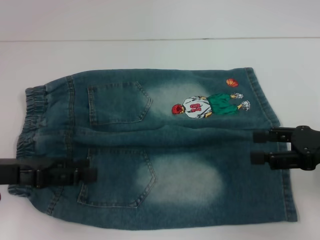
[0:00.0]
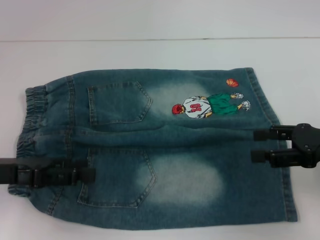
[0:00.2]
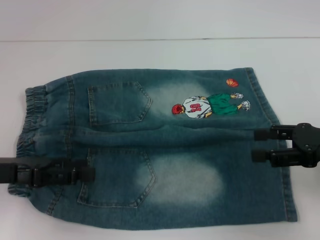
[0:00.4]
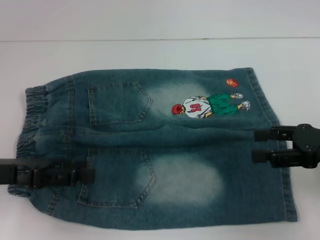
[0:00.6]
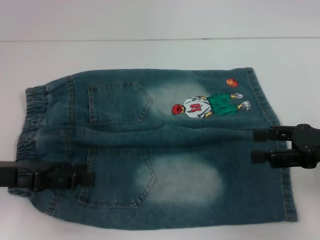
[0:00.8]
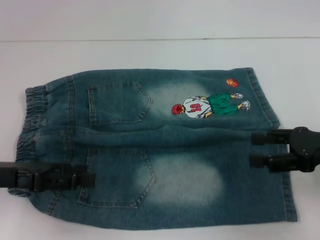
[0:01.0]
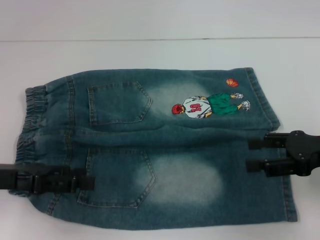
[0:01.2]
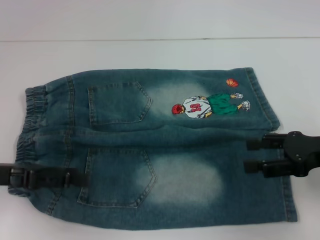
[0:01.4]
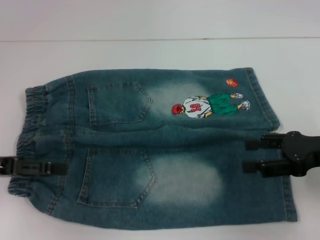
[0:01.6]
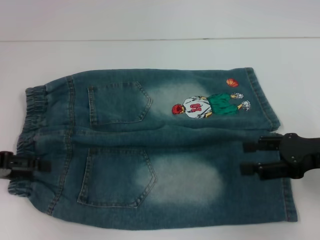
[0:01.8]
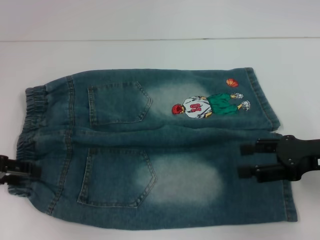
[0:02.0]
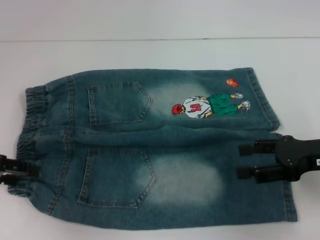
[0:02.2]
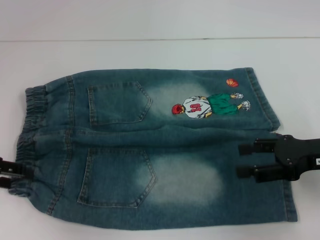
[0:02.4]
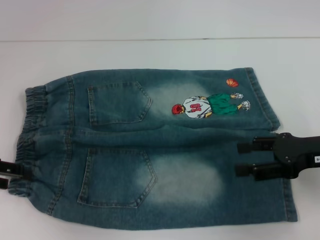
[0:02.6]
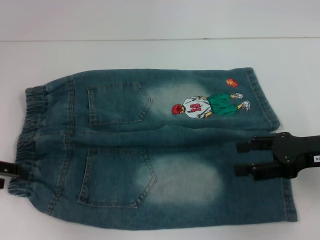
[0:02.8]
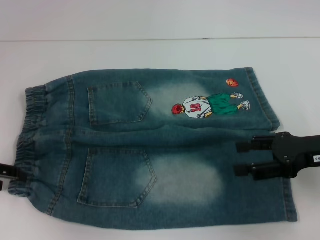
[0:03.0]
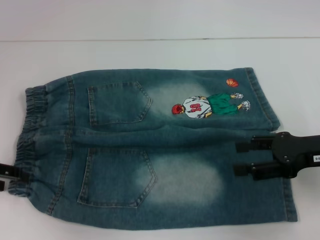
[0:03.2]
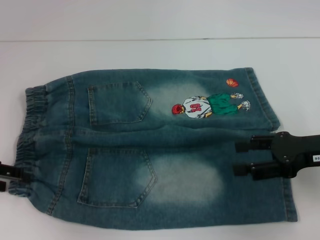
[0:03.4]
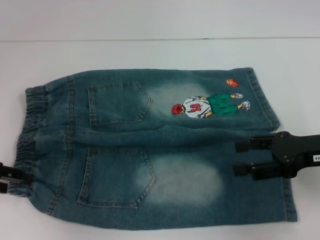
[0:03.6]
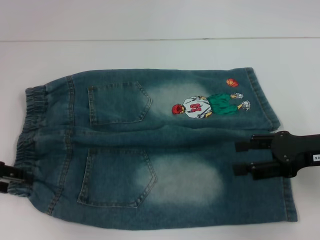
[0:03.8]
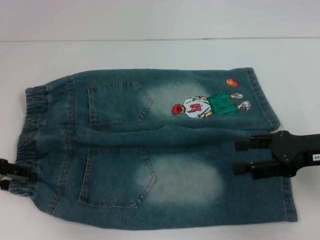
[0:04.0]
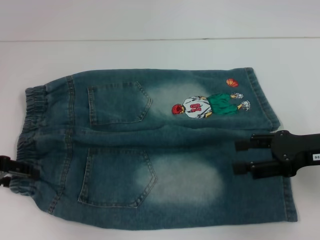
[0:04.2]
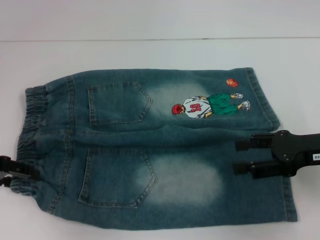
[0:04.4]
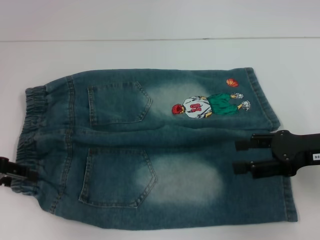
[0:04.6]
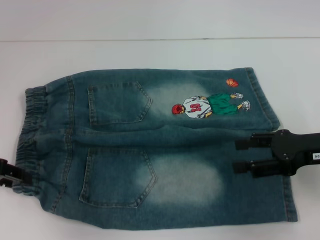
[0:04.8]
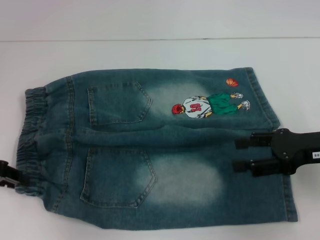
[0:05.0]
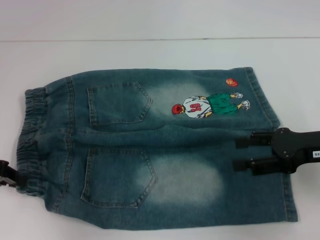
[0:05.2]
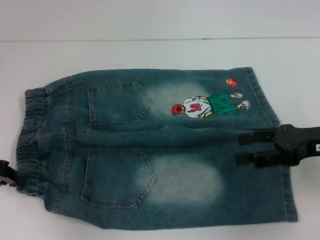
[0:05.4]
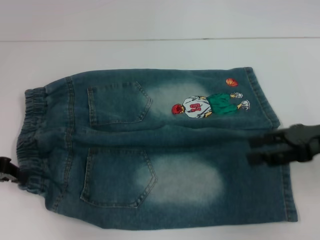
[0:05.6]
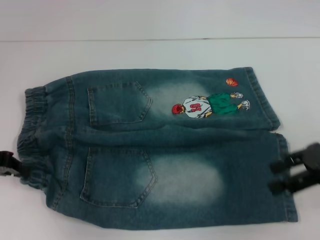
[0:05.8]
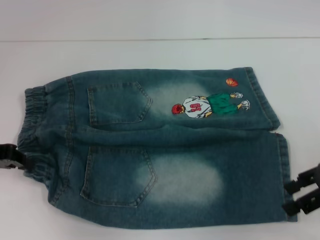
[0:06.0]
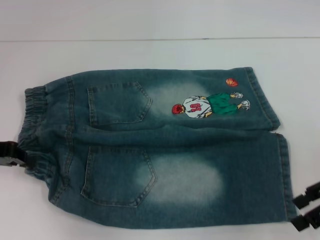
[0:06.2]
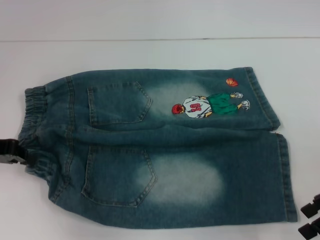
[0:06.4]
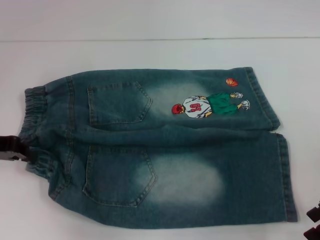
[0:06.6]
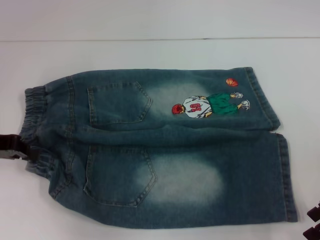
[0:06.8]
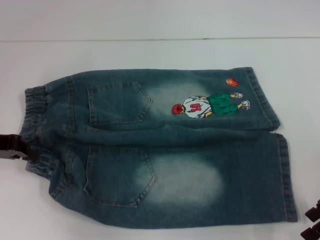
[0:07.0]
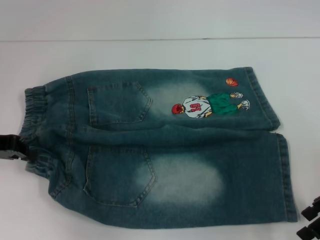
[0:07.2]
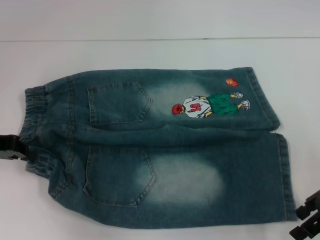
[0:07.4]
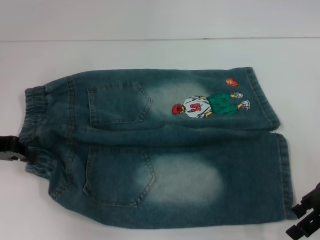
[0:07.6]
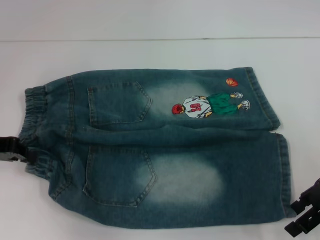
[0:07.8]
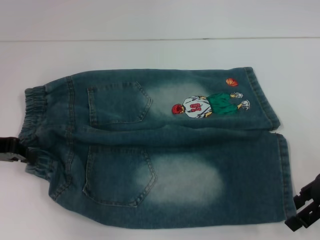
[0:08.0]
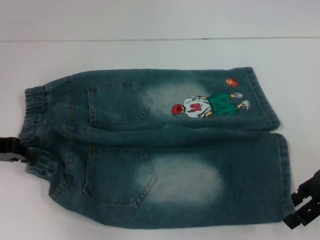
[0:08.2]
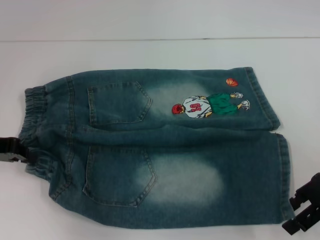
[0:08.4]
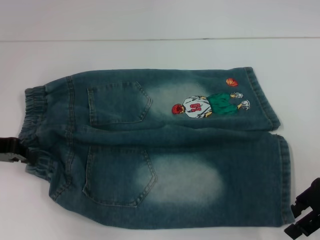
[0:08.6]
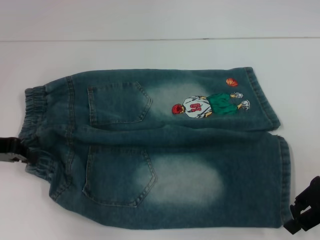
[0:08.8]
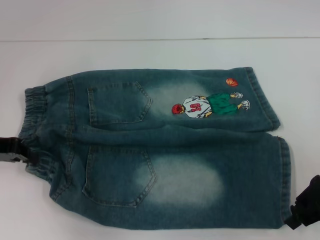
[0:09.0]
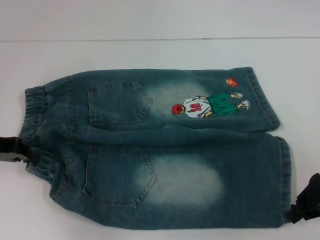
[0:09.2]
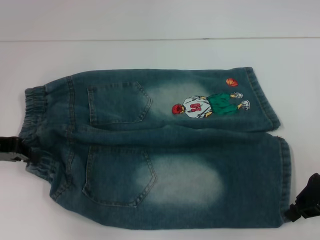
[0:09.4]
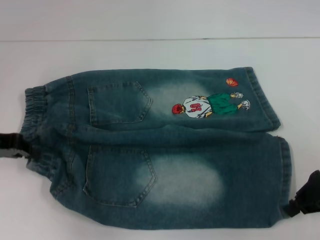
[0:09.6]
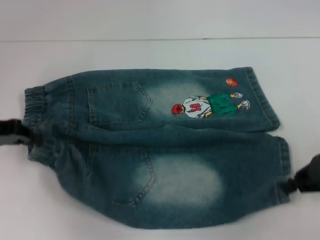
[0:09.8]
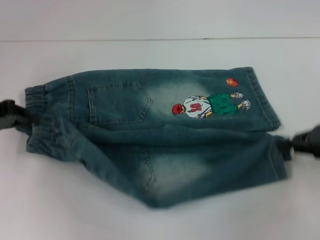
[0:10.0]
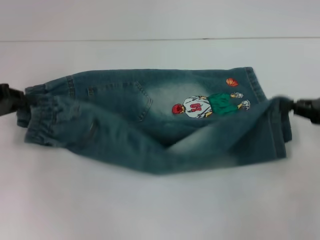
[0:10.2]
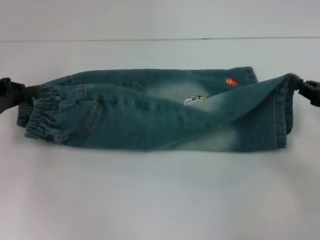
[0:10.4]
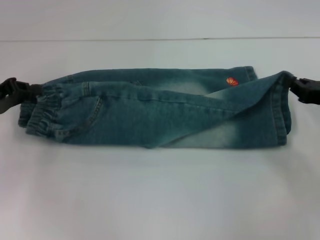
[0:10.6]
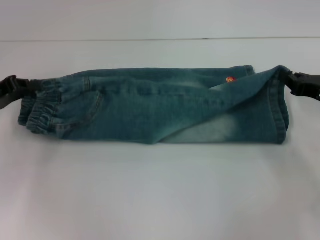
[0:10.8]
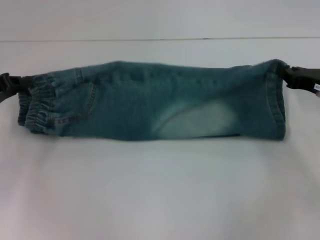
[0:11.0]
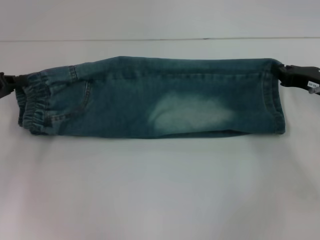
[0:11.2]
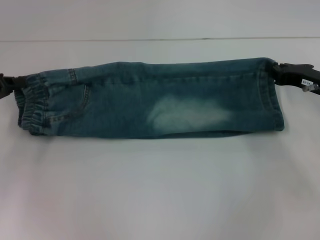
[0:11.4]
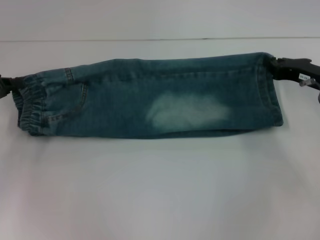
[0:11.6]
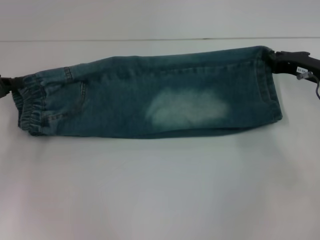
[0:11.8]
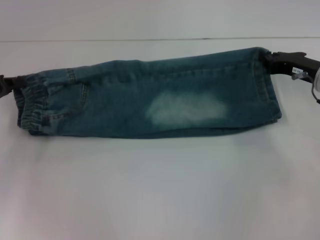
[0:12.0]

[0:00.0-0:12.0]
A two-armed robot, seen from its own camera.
Step, 0:00.0 to 0:05.4: Hold the lower left waistband with your left hand.
Step, 0:05.6 to 0:09.2: Grab the lower right pant leg with your right hand.
0:03.0 to 0:04.4: There are only small adjustments of the grippers.
0:04.4 to 0:06.0: The left gripper closes.
0:06.0 to 0:09.0: There are only small adjustments of the grippers.
0:09.0 to 0:10.4: The right gripper moves to the right, roughly 5 cm, and closes up.
0:10.4 to 0:12.0: The right gripper shifts some 10 cm forward and to the left.

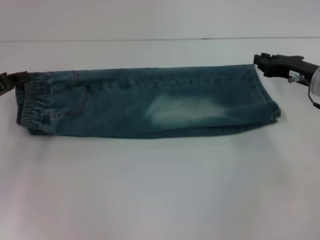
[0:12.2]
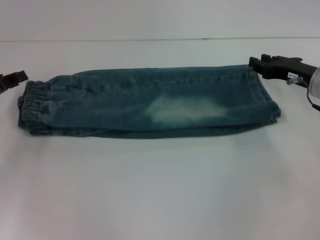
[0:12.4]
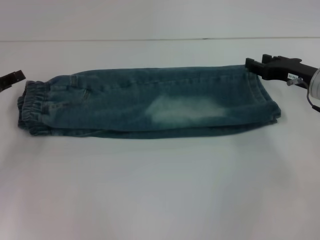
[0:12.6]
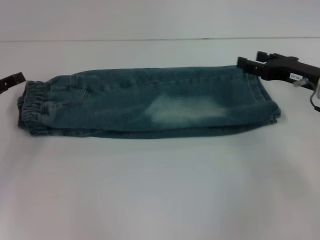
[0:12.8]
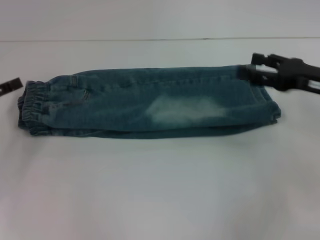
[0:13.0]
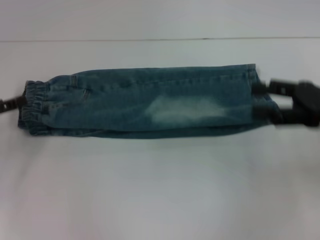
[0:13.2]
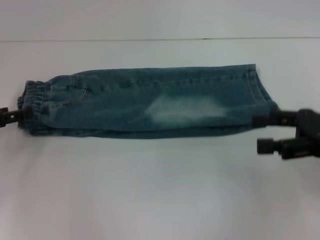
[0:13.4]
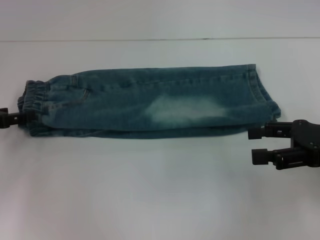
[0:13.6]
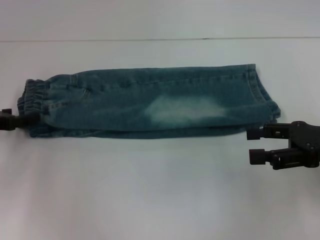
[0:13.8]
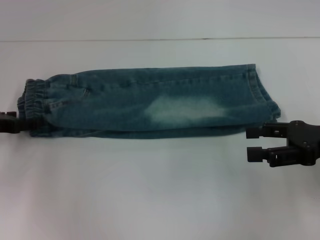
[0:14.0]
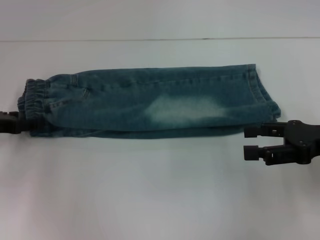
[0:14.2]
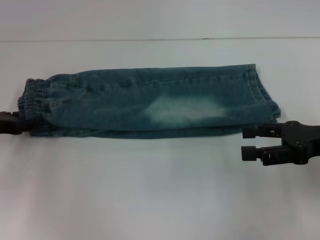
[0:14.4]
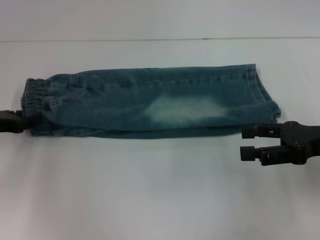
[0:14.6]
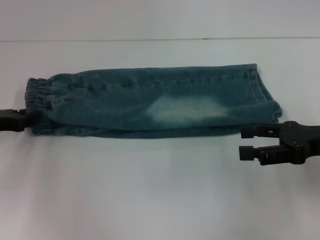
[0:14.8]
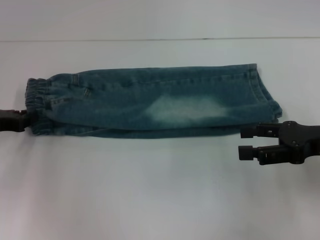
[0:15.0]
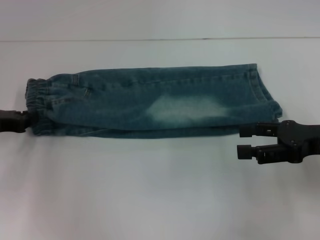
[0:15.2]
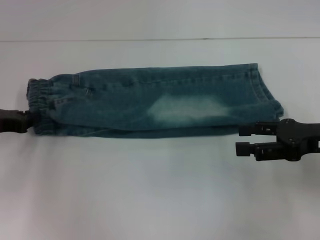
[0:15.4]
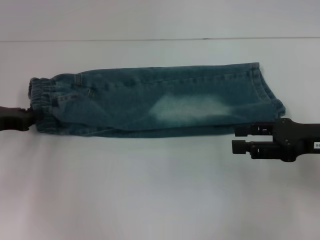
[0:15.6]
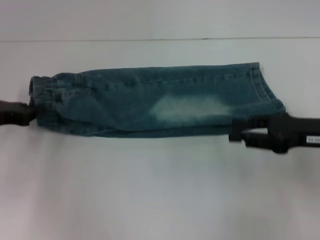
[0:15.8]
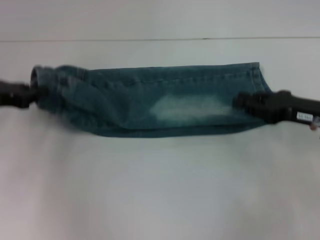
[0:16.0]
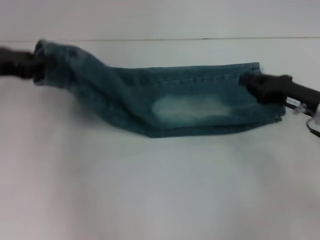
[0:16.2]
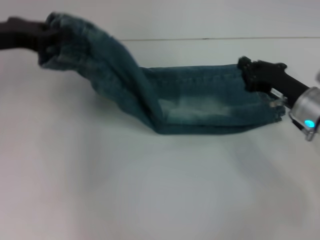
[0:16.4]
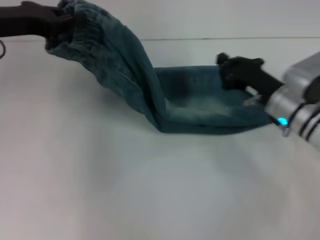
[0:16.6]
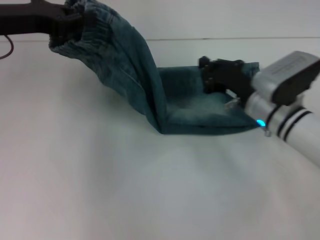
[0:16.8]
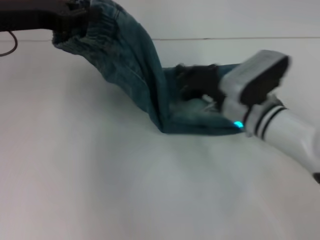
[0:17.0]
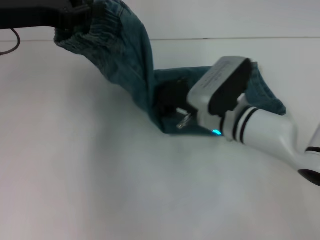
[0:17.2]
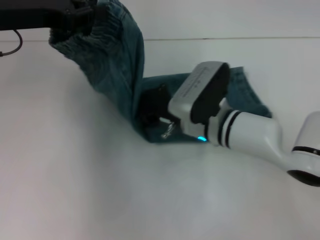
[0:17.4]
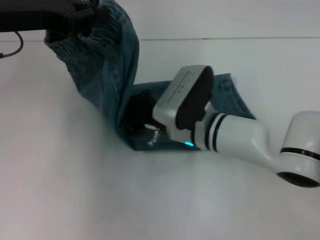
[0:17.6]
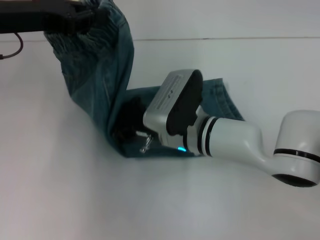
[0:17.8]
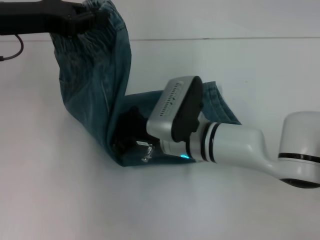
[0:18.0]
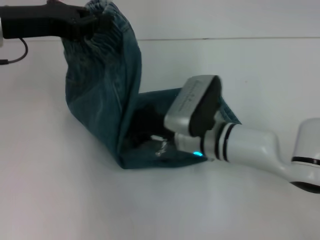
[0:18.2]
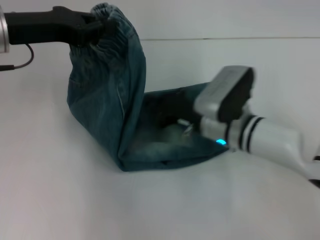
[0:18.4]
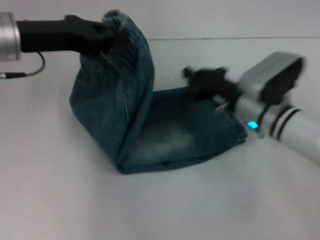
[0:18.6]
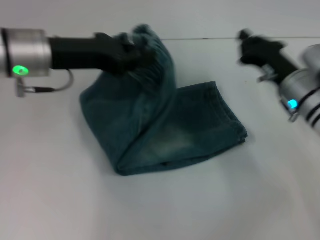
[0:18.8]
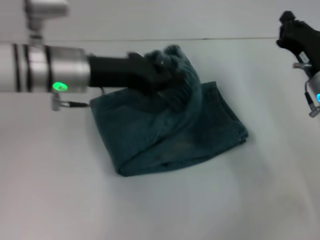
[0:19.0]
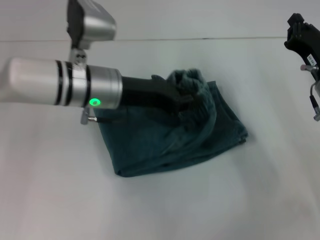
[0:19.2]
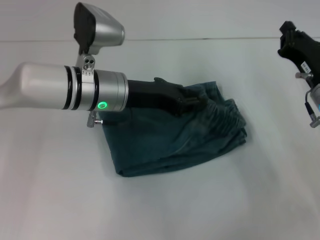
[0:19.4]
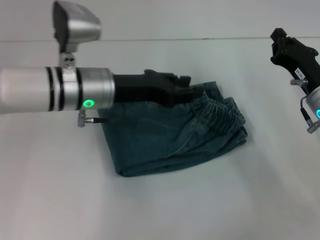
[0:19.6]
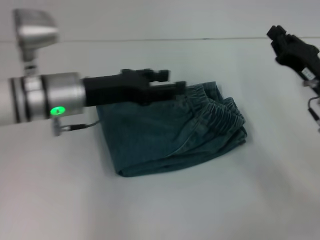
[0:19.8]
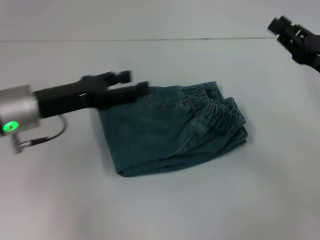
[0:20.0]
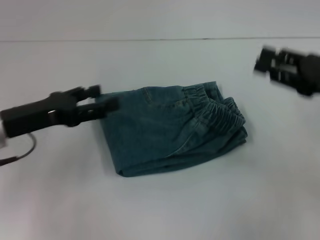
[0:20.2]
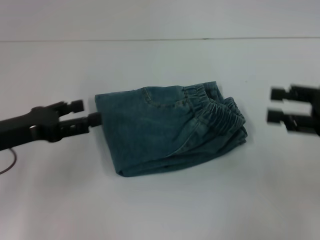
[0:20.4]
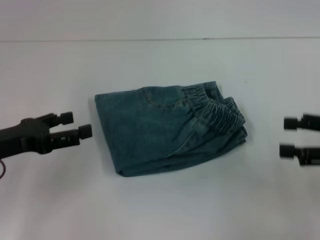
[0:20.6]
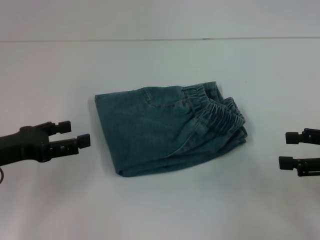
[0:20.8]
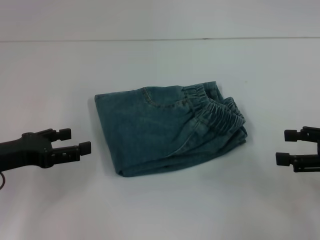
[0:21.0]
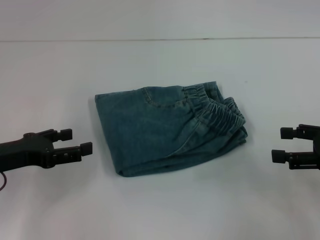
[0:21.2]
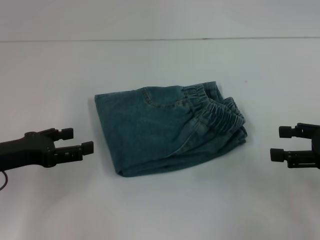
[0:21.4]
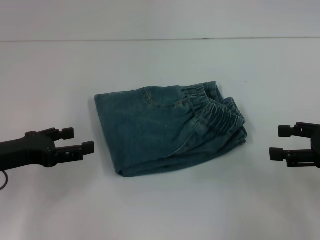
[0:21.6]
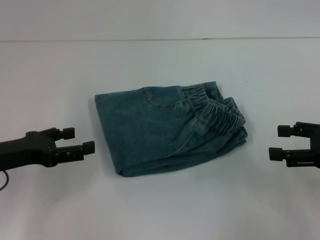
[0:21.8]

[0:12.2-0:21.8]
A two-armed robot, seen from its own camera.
Step, 0:12.8 to 0:15.0: Hold the waistband with your left hand.
Step, 0:15.2 to 0:18.2: Press the middle of the pants with your right hand.
Step, 0:18.4 to 0:19.6: Fold to the right with your left hand.
0:12.2 to 0:13.8: The right gripper heads backward, covering some 10 cm, and opens; the left gripper opens up.
0:13.8 to 0:15.4: The left gripper closes.
0:15.4 to 0:17.0: The right gripper is displaced to the left, forward and downward by approximately 20 cm, and closes its fingers; the left gripper heads upward and to the right, covering some 15 cm.
0:17.0 to 0:18.6: The right gripper reaches approximately 10 cm to the left, then returns.
0:18.6 to 0:20.2: The right gripper heads to the right and upward, covering roughly 15 cm, and opens its fingers. The left gripper shifts roughly 10 cm downward and backward, goes to the right and returns, some 10 cm each way, and opens.
0:20.2 to 0:21.8: The right gripper shifts by roughly 5 cm, and opens its fingers. The left gripper shifts by roughly 5 cm.
